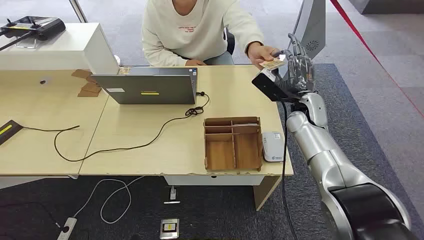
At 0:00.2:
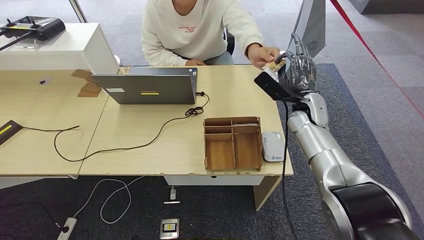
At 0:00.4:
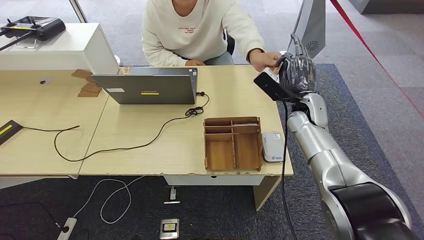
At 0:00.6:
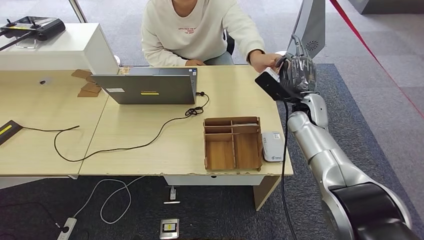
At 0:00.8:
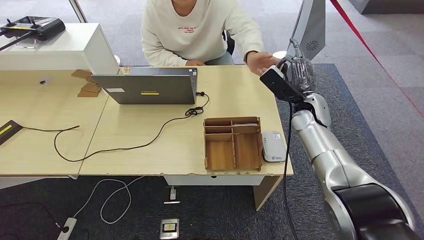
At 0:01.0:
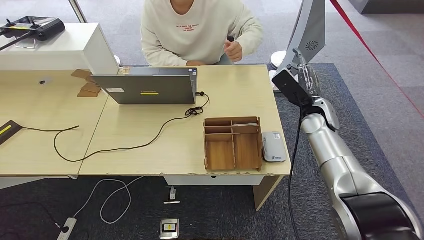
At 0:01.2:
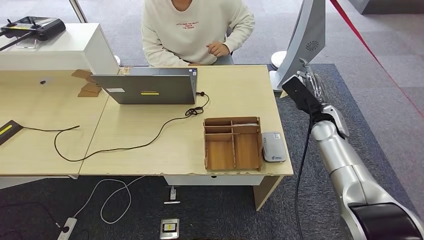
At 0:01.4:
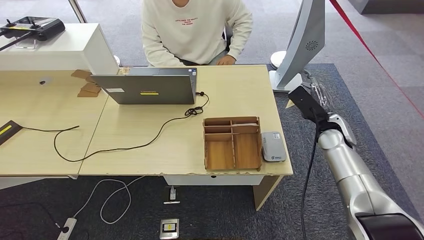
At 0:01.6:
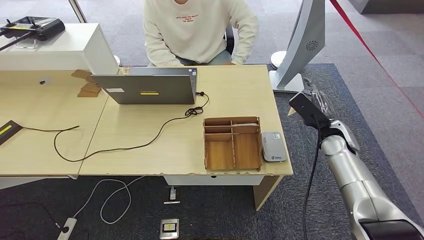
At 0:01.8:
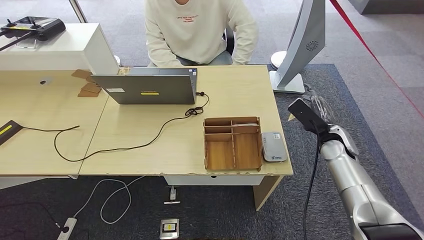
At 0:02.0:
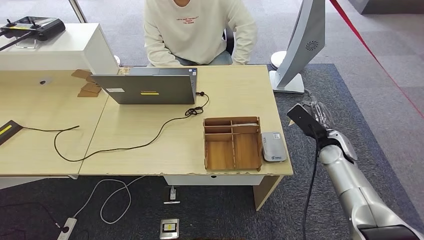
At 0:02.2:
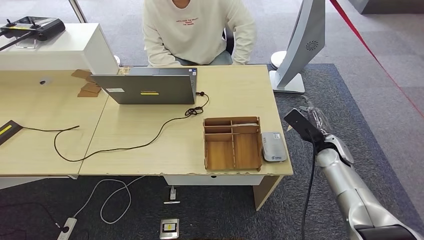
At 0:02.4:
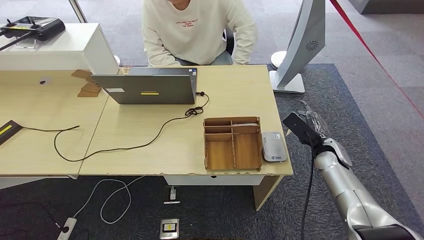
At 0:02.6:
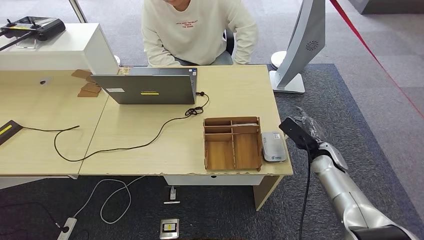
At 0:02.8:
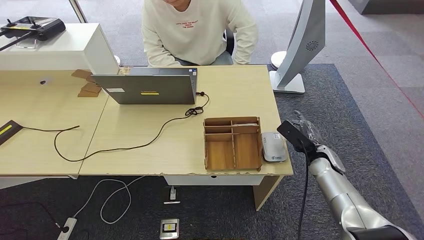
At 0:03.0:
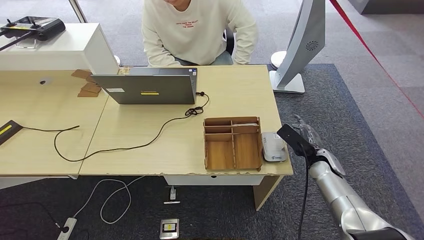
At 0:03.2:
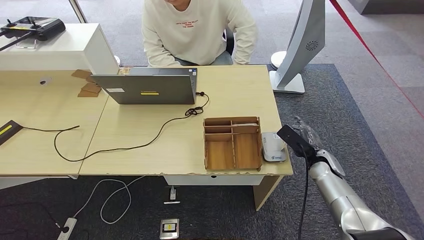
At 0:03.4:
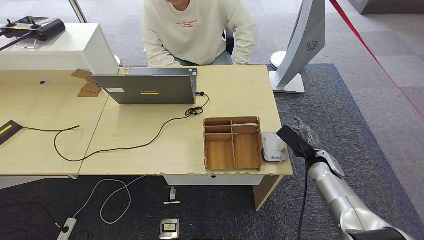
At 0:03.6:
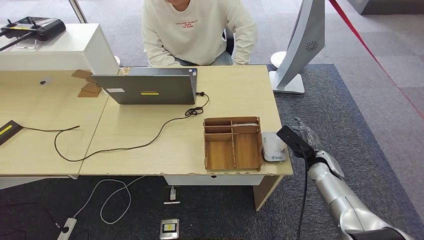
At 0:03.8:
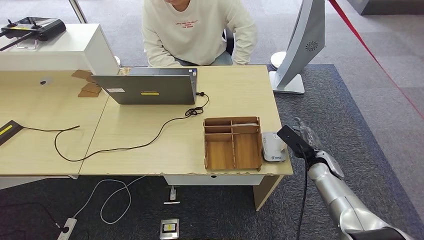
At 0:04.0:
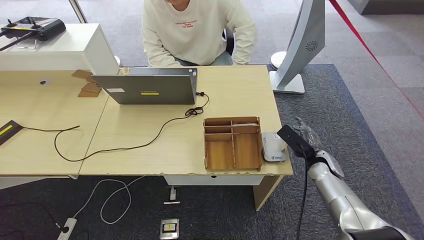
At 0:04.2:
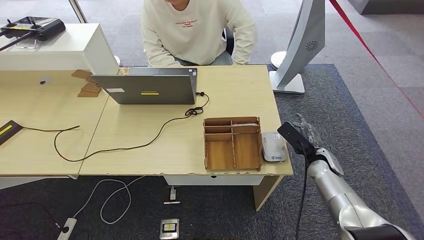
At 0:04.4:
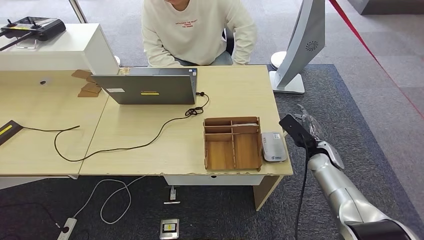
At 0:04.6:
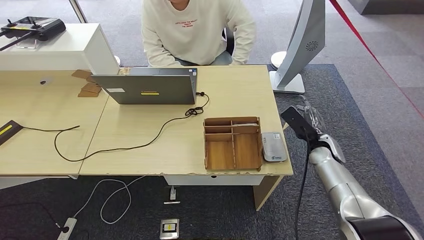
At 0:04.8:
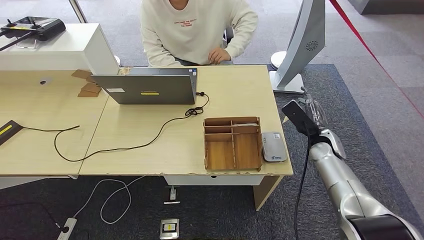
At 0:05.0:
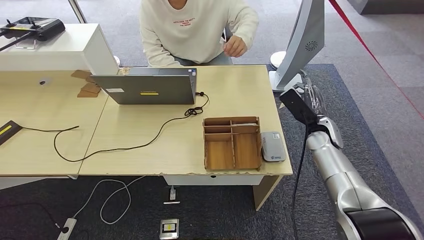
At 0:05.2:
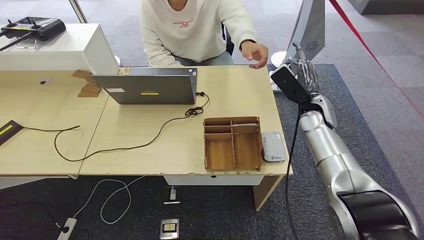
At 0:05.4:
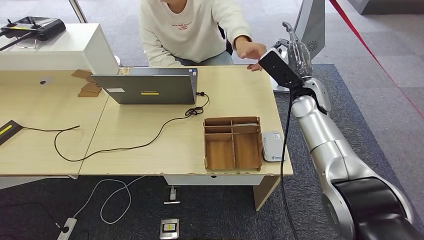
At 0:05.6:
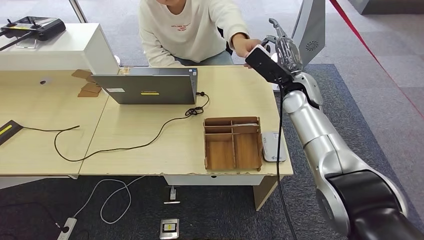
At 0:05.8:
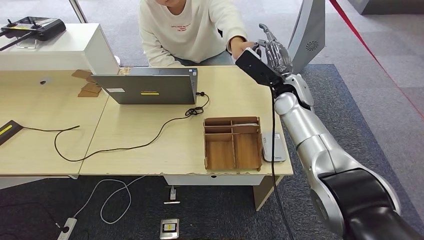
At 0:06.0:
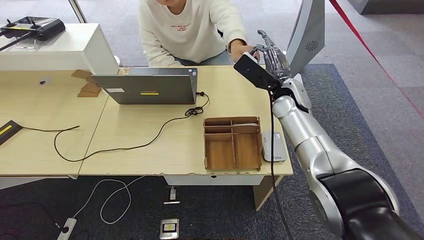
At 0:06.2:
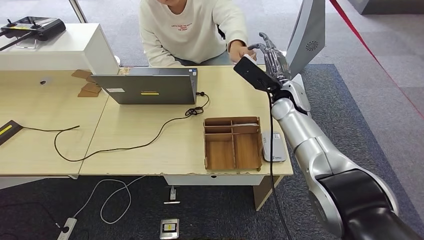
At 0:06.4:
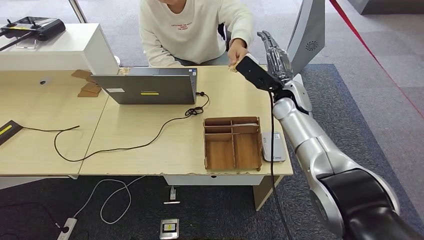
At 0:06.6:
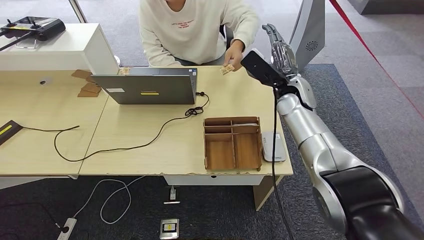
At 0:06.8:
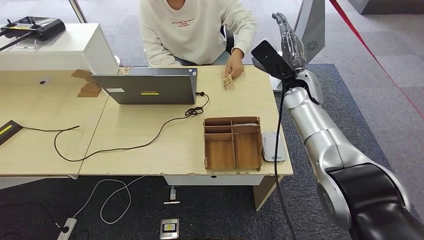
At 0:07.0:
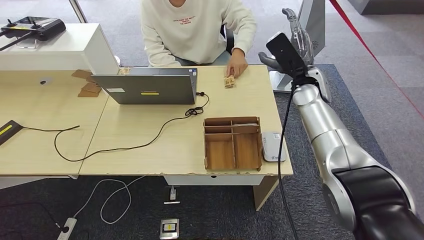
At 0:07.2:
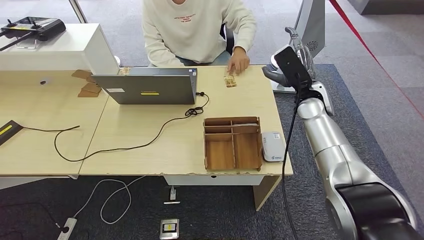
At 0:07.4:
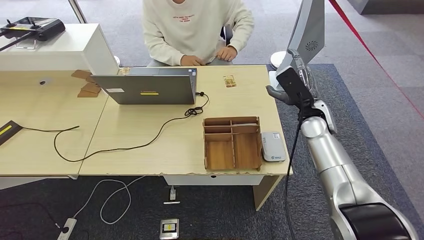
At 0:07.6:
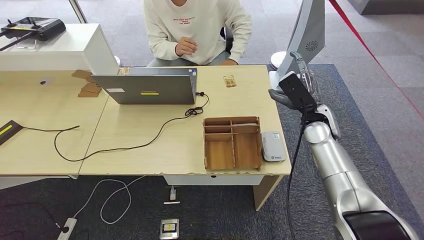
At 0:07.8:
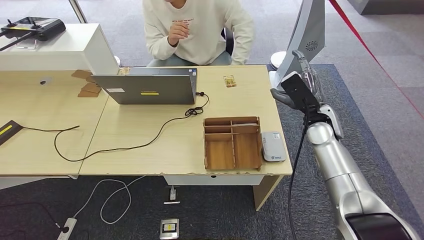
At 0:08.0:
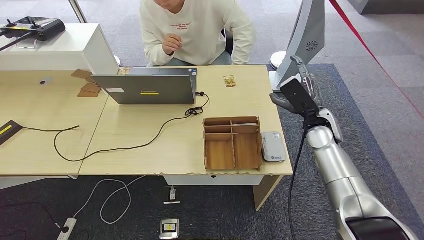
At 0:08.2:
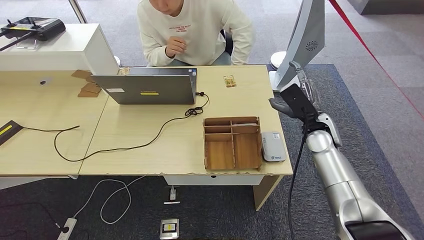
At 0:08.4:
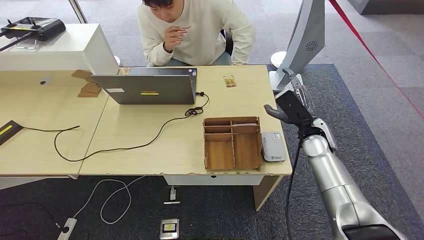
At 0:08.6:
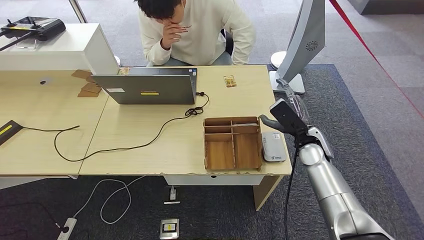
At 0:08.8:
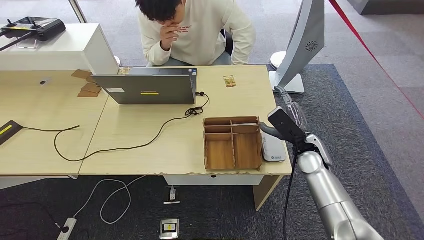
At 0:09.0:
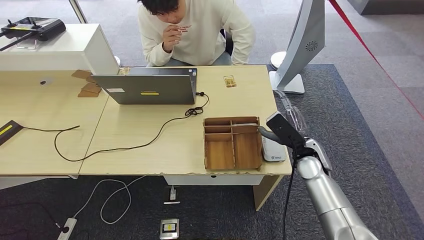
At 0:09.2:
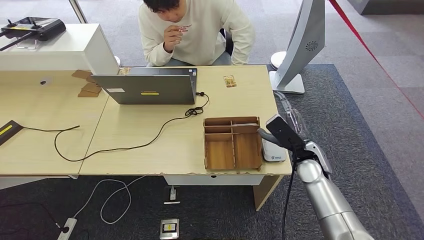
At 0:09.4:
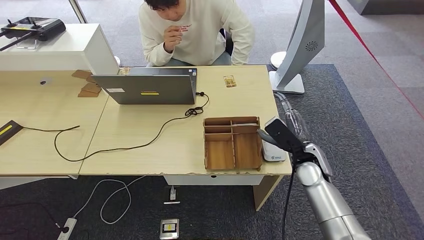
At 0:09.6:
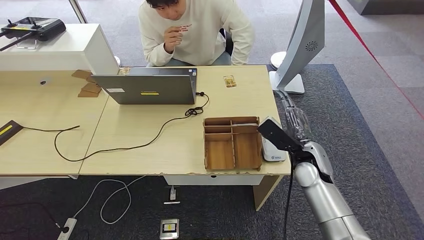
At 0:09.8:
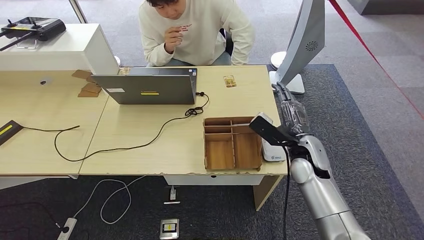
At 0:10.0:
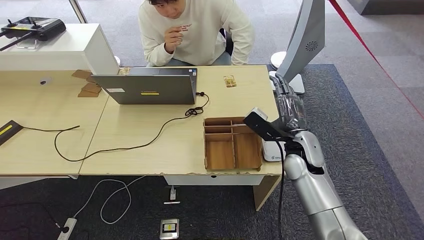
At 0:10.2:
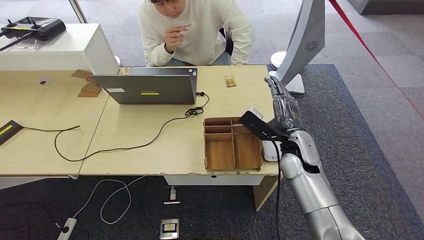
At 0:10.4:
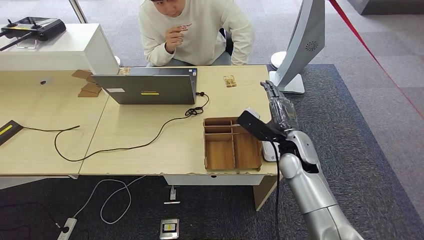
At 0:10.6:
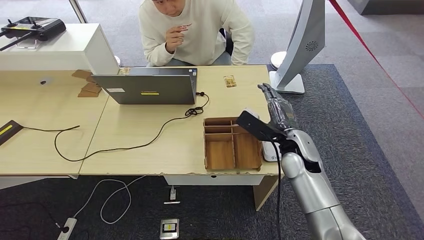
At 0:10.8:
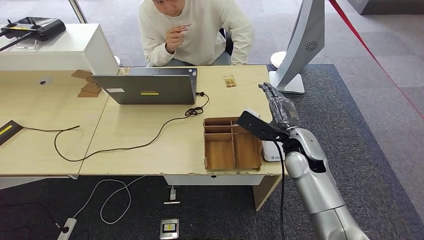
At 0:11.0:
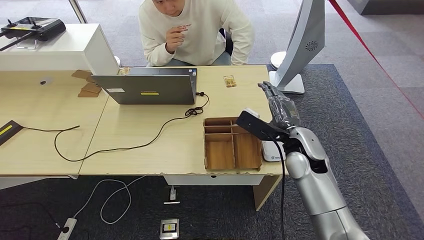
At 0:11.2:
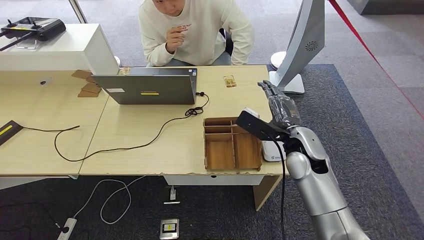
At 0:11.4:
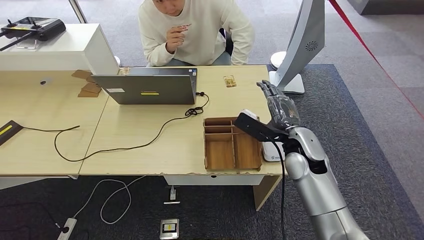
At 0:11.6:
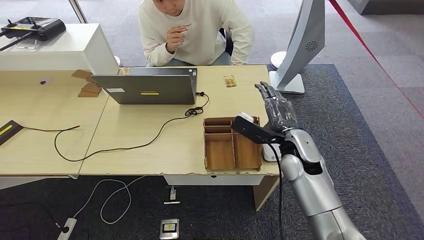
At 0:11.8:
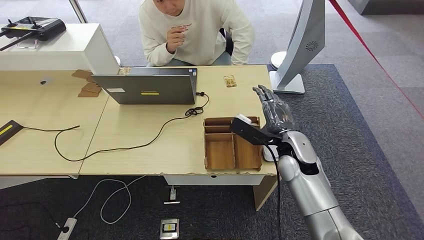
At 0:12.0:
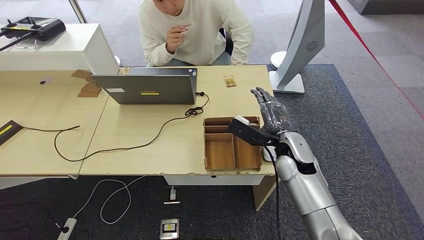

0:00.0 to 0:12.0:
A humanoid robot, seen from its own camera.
Step, 0:00.0 to 0:01.4: Take the ID card from the person's hand.
Step, 0:01.6 to 0:05.4: Place the ID card on the card reader.
Step, 0:05.6 to 0:07.6: Hand the ID card to the person.
0:01.6 to 0:03.0: The right hand is displaced downward by roughly 10 cm.
0:03.0 to 0:04.4: There are only small adjustments of the hands.
0:04.4 to 0:06.0: The right hand travels upward, to the left and forward by approximately 25 cm.
0:06.0 to 0:07.6: The right hand heads to the right and downward, covering approximately 10 cm.
0:07.6 to 0:09.0: The right hand travels downward and backward by about 10 cm.
0:09.0 to 0:10.4: The right hand travels to the left by approximately 5 cm.
0:10.4 to 0:12.0: The hands stay close to where they were, moving slightly.

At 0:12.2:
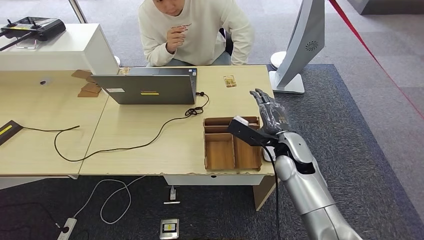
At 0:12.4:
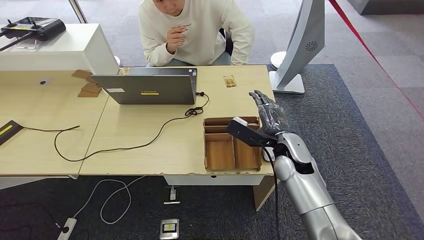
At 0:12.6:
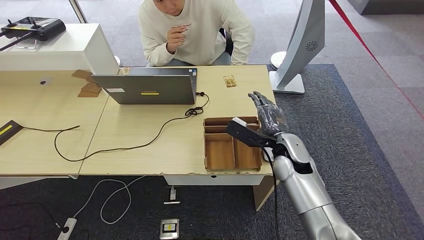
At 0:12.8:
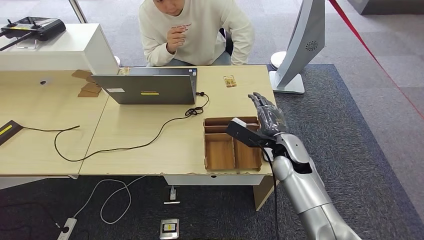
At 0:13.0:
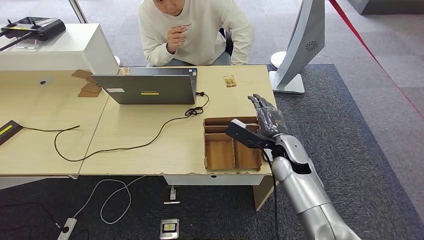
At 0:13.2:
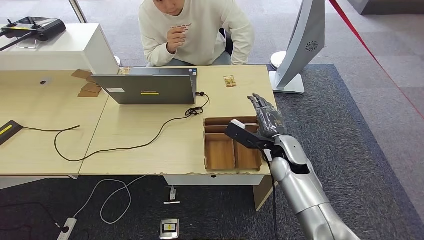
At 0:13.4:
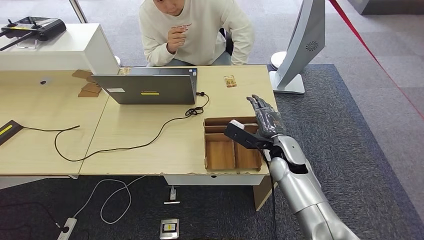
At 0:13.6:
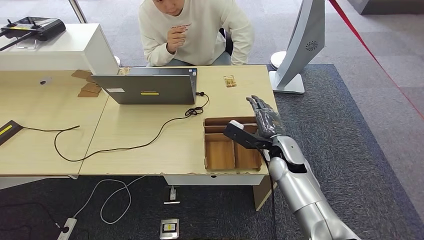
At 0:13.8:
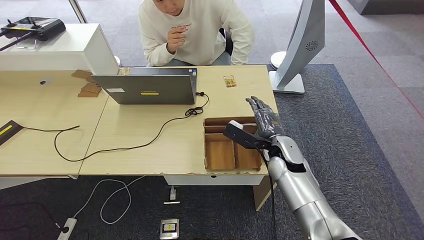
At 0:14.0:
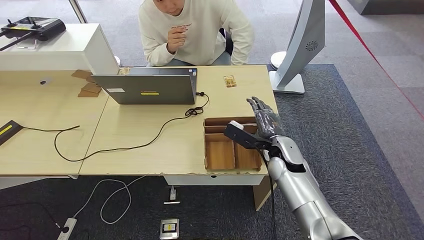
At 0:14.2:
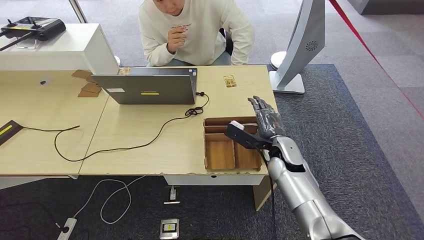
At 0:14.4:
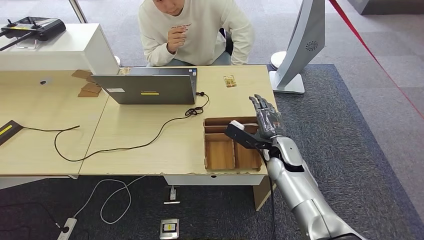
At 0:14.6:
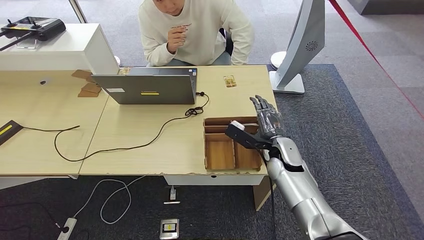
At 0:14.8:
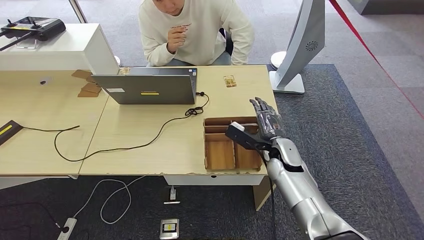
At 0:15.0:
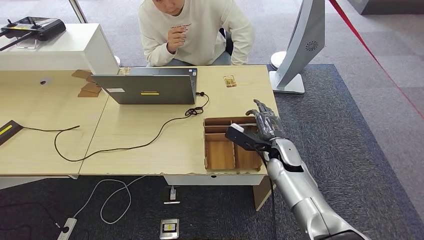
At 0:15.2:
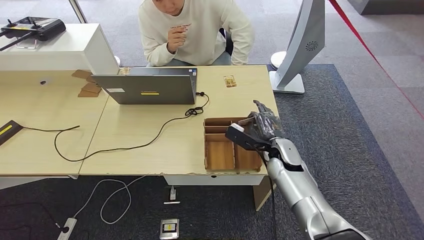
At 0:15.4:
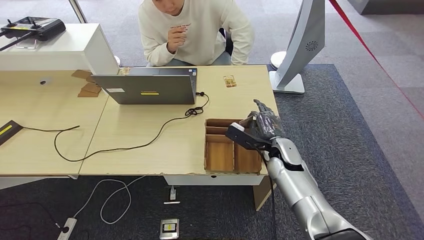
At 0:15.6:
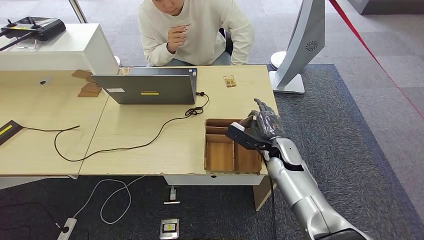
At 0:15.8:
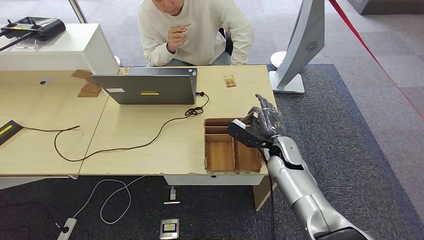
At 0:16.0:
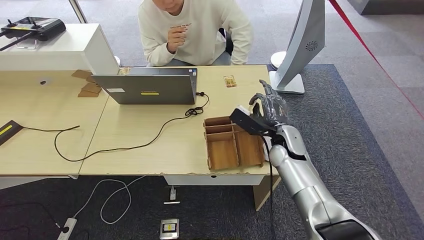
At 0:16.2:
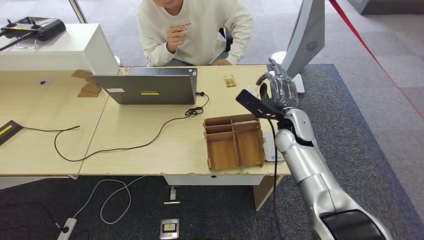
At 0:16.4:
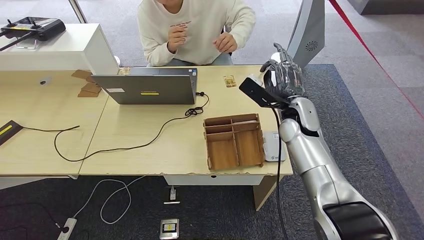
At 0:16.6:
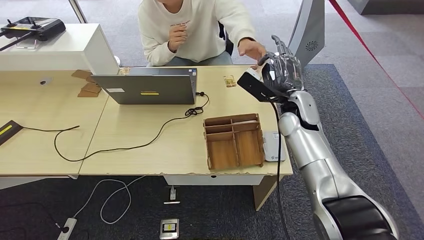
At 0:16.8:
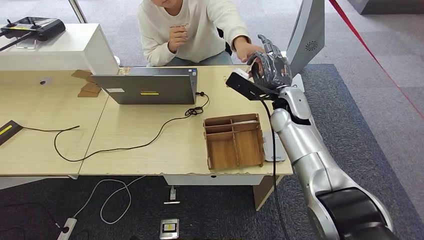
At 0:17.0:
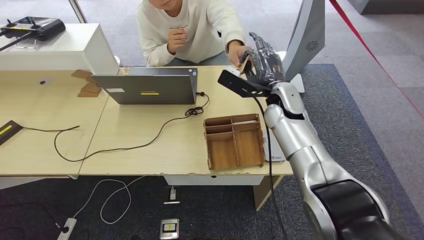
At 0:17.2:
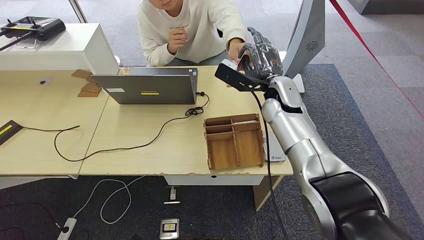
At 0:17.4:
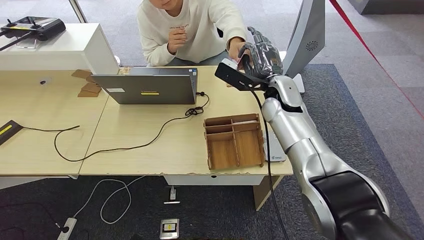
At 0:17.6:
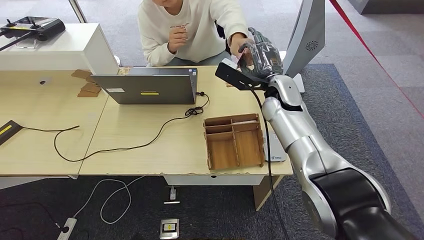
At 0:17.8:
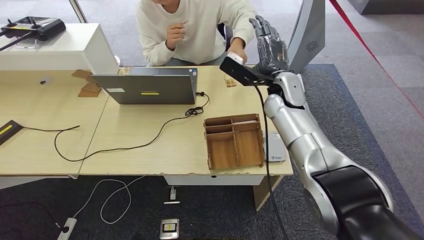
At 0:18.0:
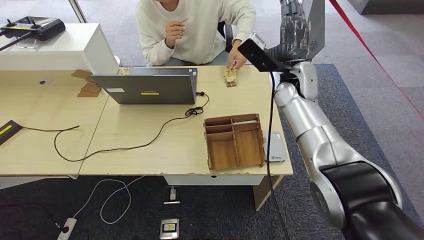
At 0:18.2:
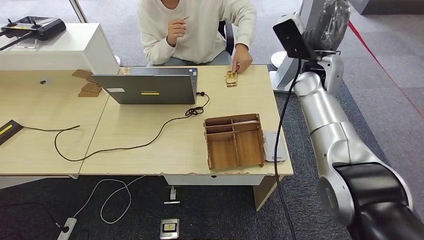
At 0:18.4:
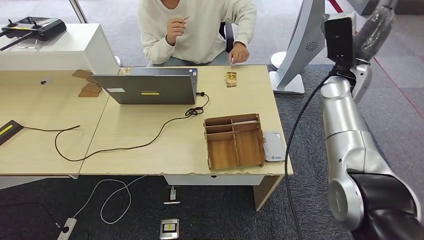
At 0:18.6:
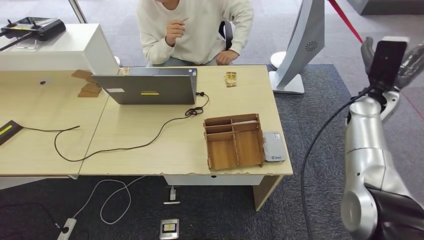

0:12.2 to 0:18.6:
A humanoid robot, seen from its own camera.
Step, 0:15.2 to 0:16.4: Pick up the room key from the key card box.
Step, 0:16.8 to 0:18.6: Hand the room key to the person.
0:12.2 to 0:15.4: The hands stay close to where they were, moving slightly.
0:15.4 to 0:17.0: The right hand goes about 15 cm upward and forward.
